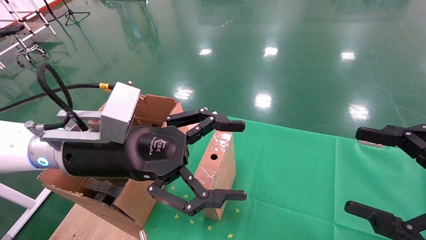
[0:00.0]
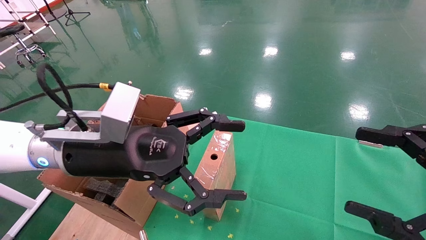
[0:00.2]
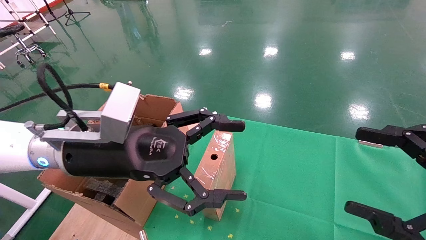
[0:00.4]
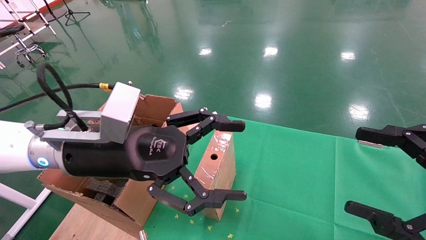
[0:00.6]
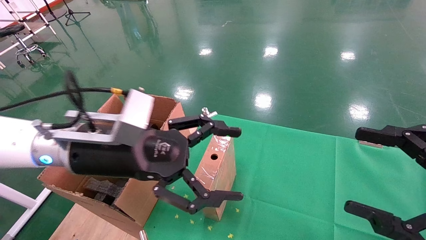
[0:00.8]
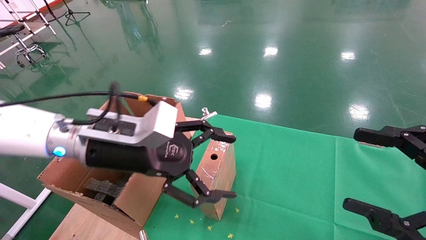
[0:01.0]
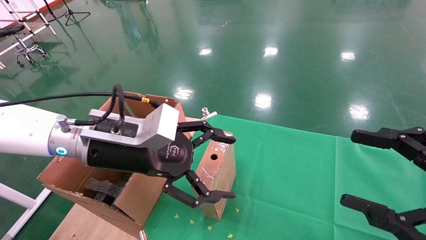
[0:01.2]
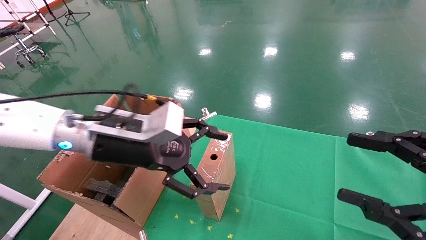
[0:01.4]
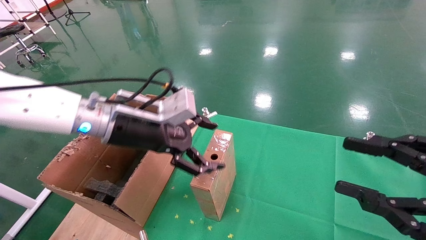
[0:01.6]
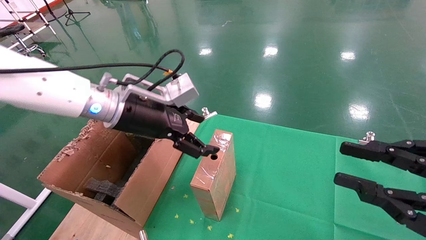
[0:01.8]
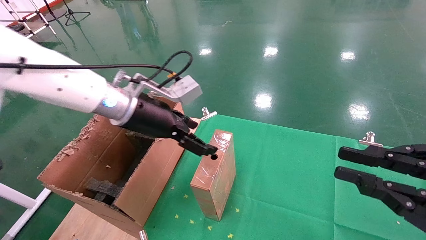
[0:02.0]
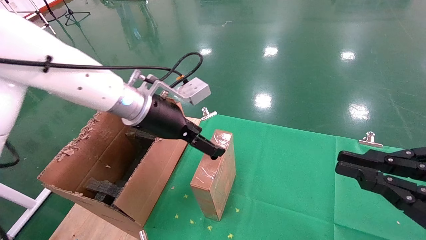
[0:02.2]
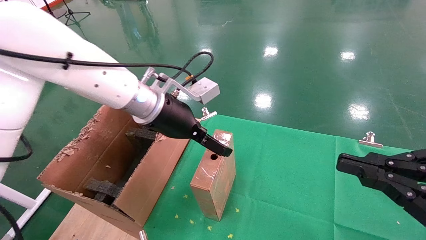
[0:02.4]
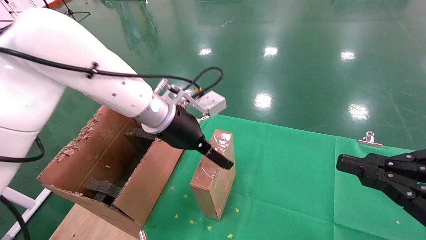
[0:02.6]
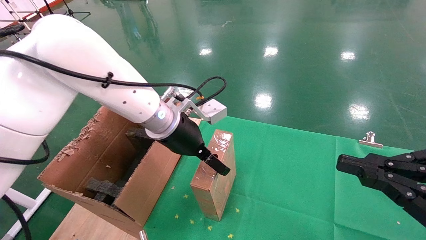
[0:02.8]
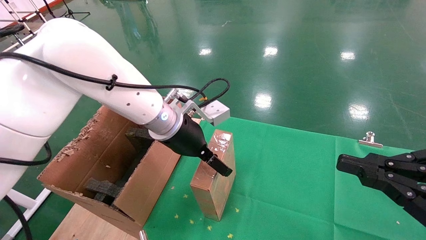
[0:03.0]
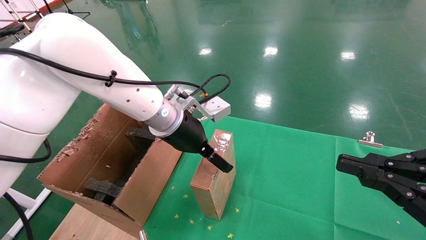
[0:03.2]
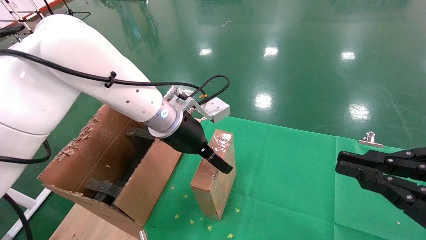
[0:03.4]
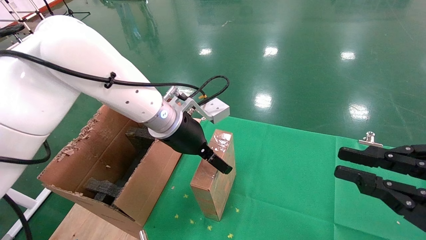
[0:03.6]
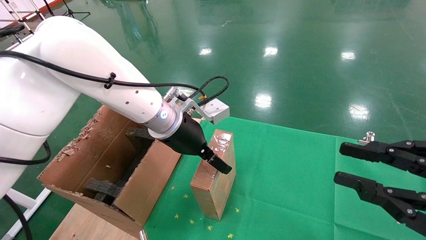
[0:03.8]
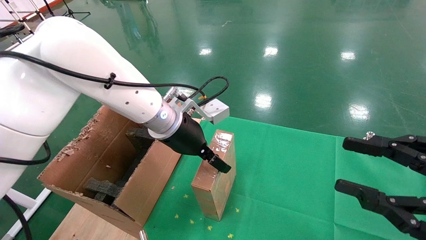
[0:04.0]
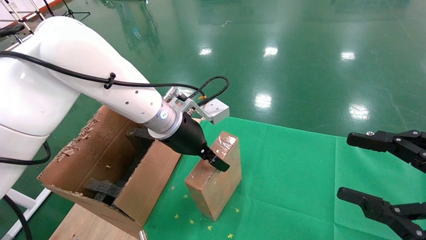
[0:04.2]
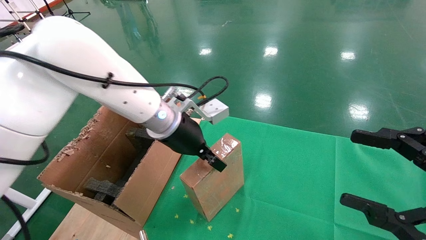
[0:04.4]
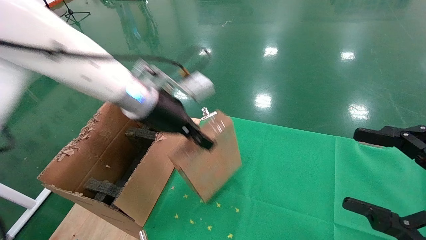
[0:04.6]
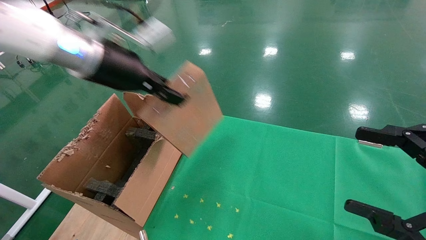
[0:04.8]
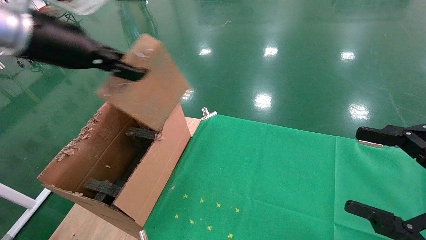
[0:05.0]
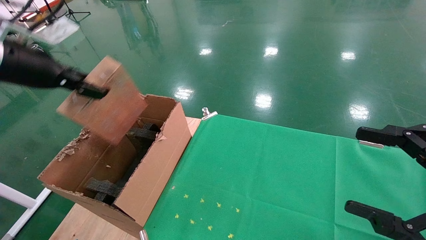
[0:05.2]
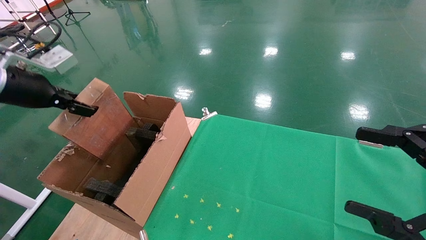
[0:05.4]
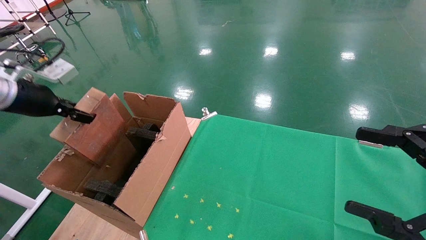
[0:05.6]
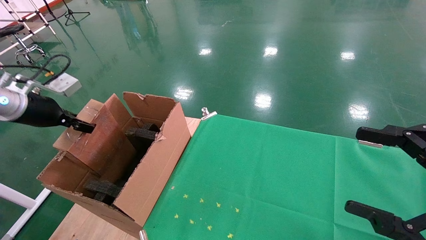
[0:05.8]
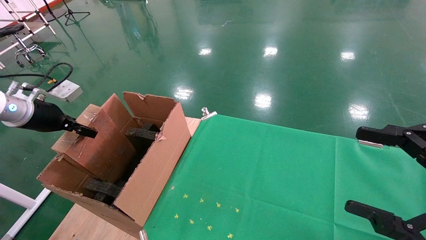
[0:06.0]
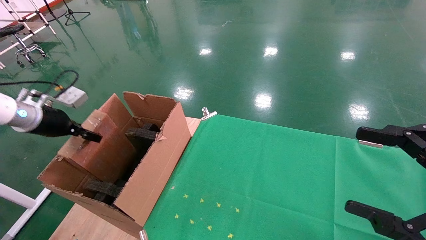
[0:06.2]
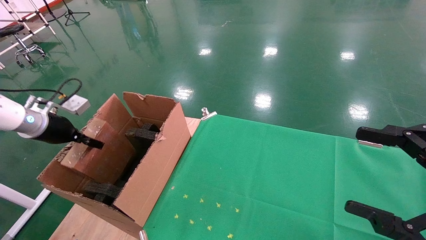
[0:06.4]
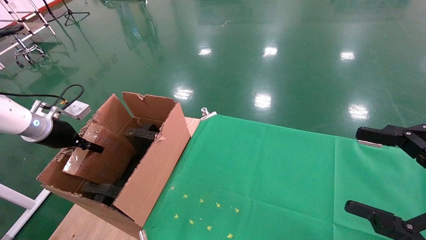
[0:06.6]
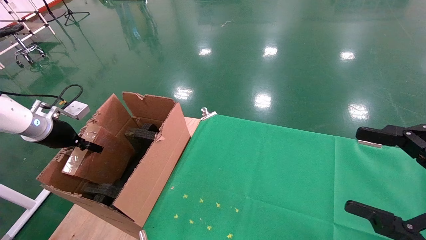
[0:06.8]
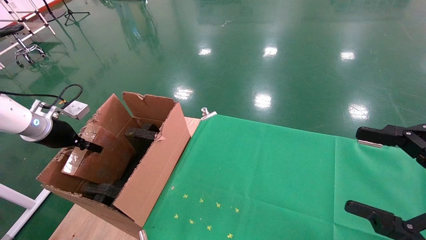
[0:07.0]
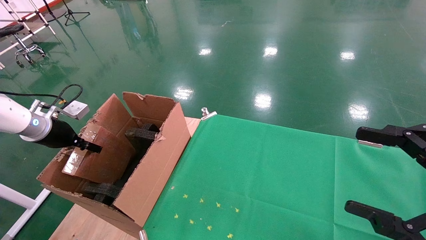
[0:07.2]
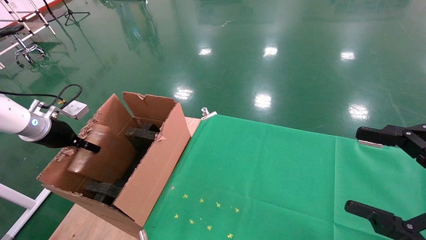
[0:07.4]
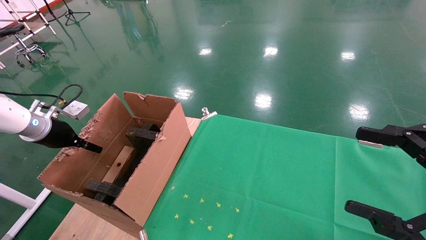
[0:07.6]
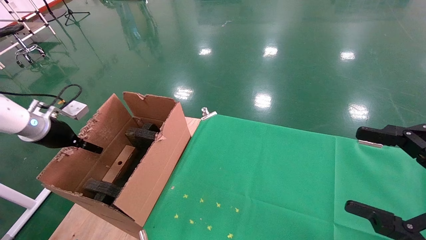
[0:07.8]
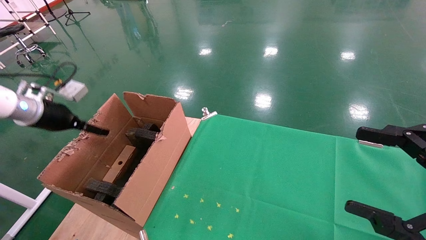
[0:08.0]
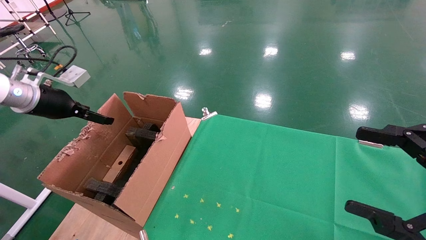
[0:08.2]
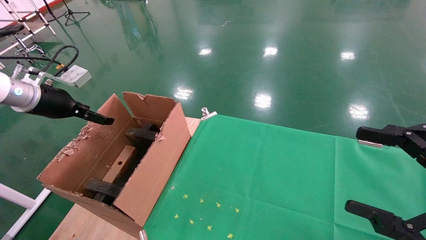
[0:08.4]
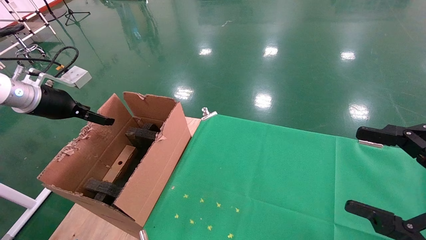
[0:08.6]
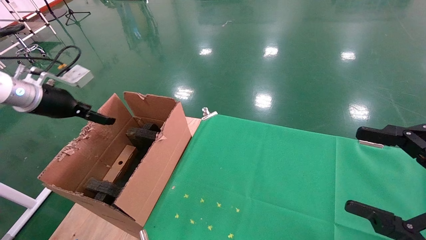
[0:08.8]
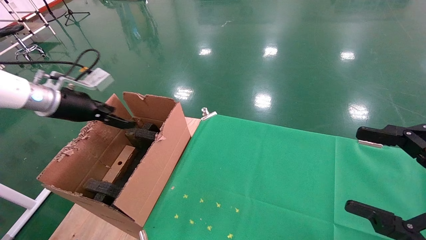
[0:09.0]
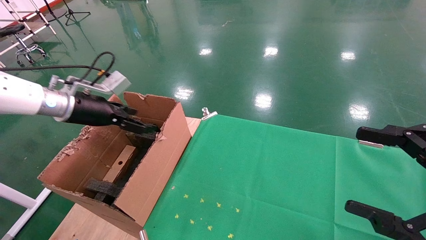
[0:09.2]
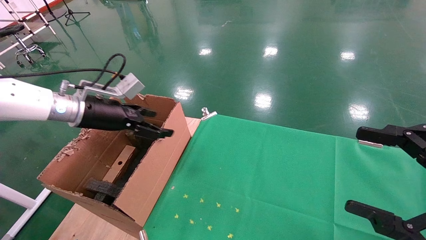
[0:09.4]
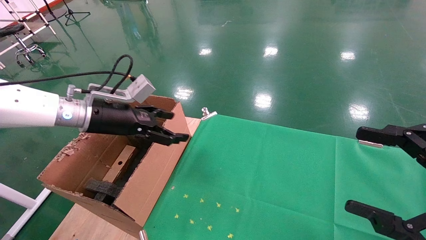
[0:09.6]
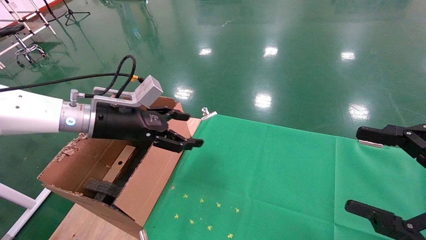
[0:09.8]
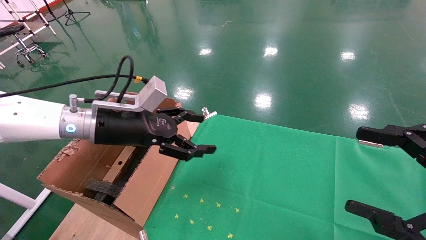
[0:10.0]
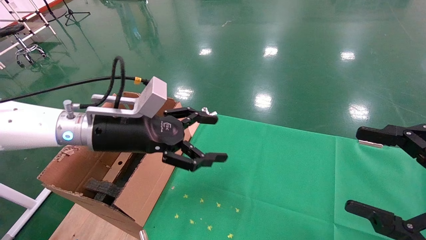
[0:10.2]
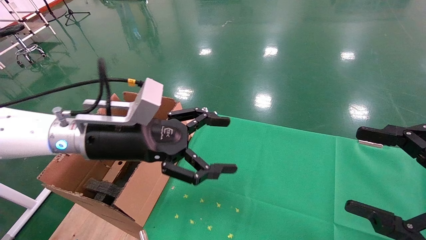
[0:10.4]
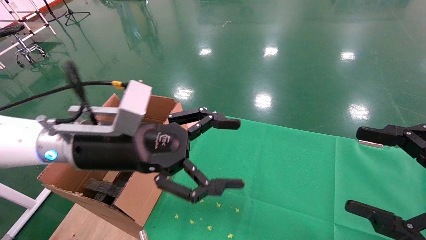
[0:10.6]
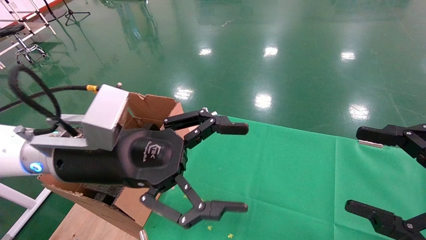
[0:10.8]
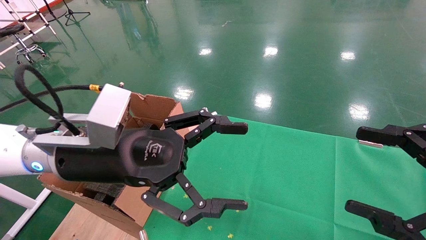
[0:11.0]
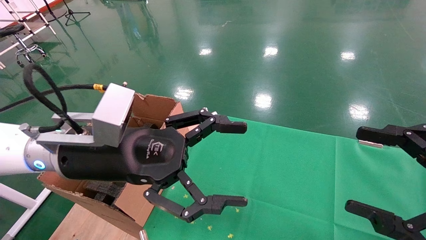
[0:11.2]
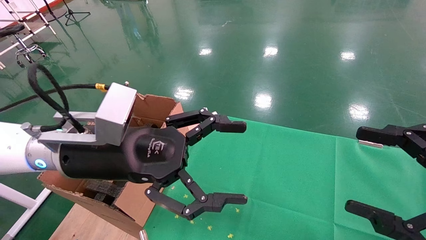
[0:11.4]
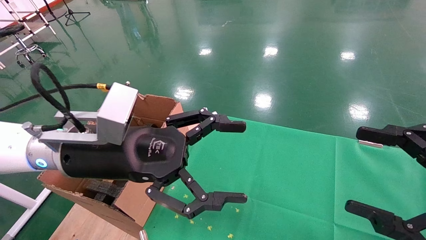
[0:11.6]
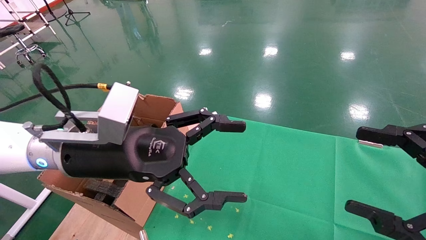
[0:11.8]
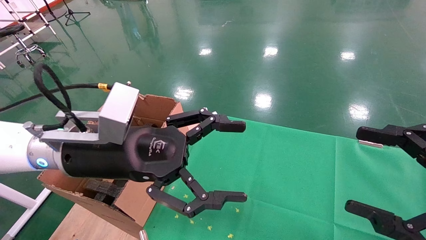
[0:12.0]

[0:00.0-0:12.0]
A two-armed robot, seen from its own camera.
Task of the whole recording: using a robotic arm to pick up a cardboard box and palace it the carton.
Step, 0:01.0 to 0:04.4: Pick up the mouse and the power cord paper box.
Step, 0:04.6 to 0:07.8: Place the mouse and the power cord paper box into the container.
0:00.0 to 0:01.6: The left gripper heads forward, covering about 5 cm; the right gripper closes.
0:01.6 to 0:03.0: The left gripper moves to the right and forward, roughly 10 cm. Meanwhile the right gripper closes.
0:03.0 to 0:04.4: The left gripper closes up; the right gripper opens.
0:04.4 to 0:06.0: The left gripper shifts approximately 35 cm to the left.
0:06.0 to 0:07.6: The left gripper heads downward, covering approximately 5 cm.
0:07.6 to 0:09.0: The left gripper shifts approximately 10 cm to the right and upward, and opens.
0:09.0 to 0:10.4: The left gripper shifts about 20 cm to the right and backward.
0:10.4 to 0:12.0: The left gripper moves roughly 5 cm.

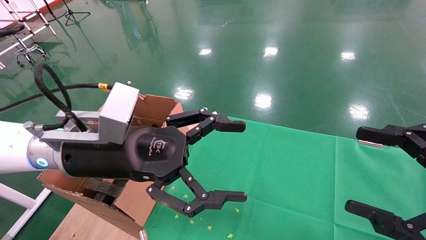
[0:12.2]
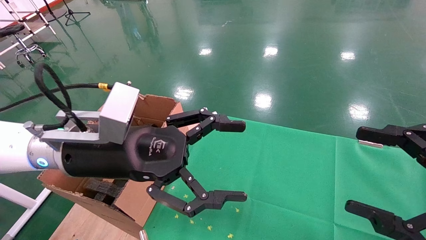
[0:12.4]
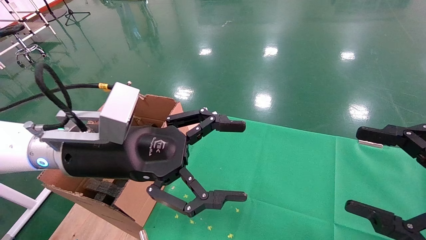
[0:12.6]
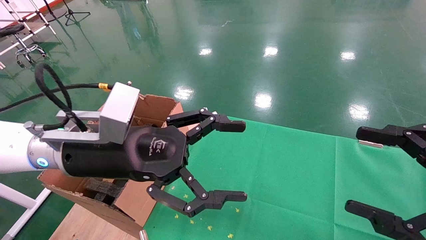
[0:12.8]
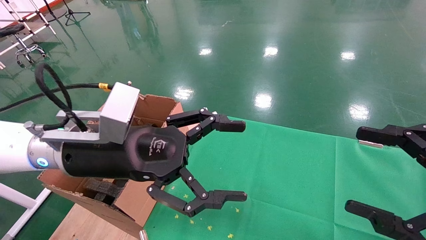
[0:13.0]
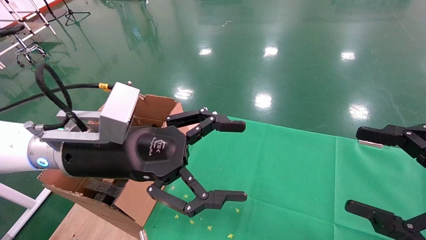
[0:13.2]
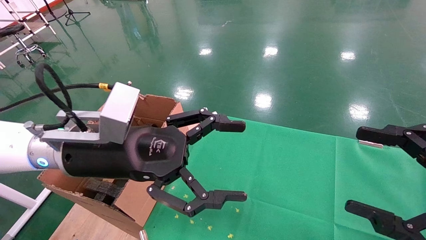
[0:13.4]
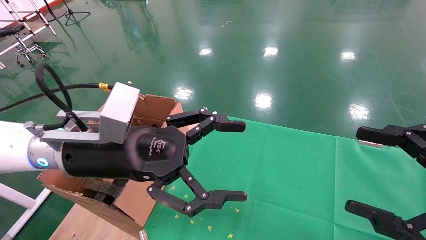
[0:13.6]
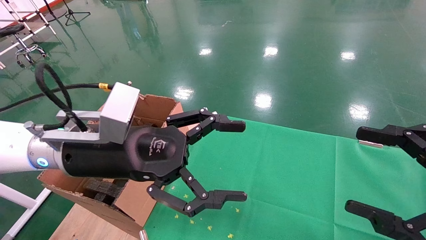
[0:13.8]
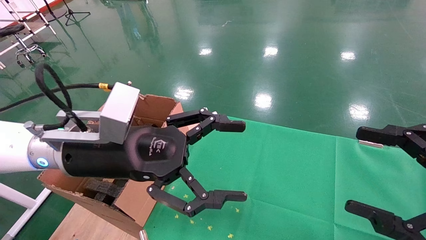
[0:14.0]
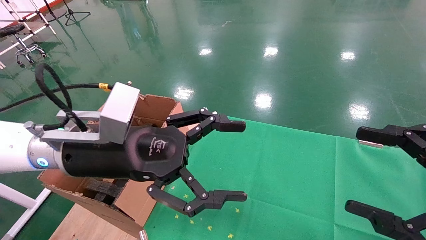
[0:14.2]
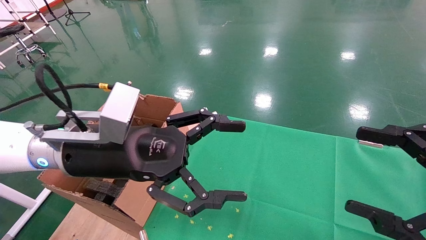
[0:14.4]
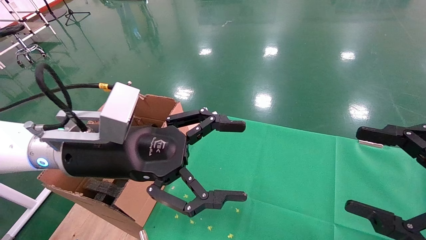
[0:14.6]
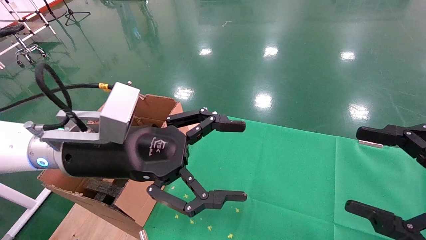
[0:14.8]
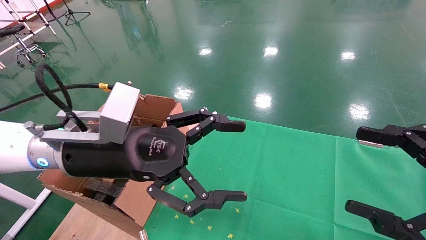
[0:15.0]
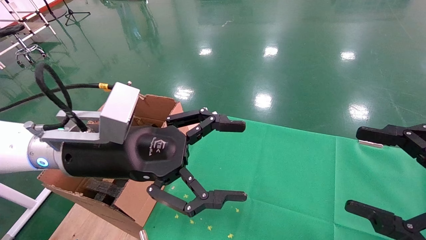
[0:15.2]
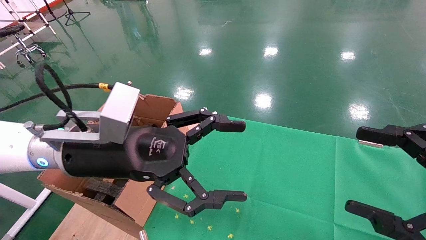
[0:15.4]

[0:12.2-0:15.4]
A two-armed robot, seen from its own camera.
Task of the whole recording: using a robotic arm to pick up a cardboard box and palace it the carton.
0:12.2 to 0:15.4: Both grippers stay about where they are.

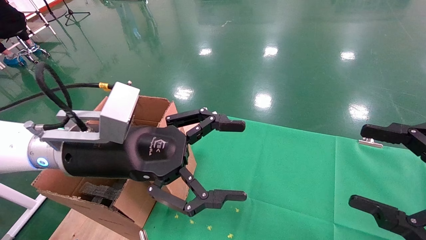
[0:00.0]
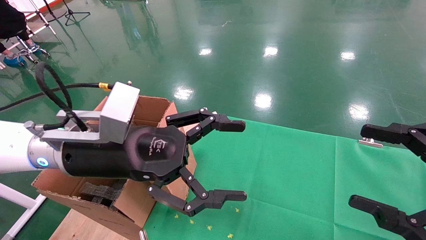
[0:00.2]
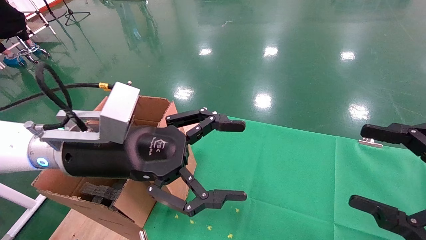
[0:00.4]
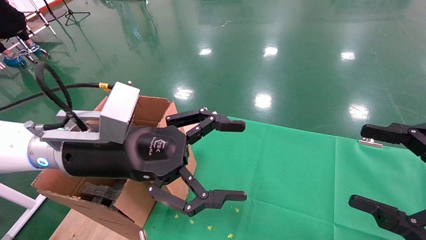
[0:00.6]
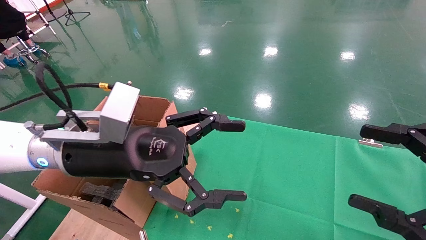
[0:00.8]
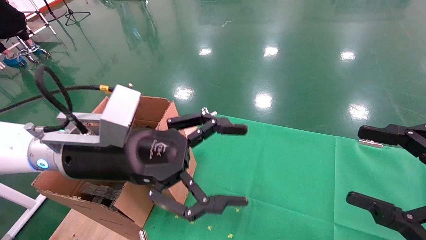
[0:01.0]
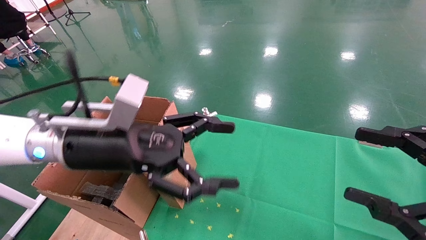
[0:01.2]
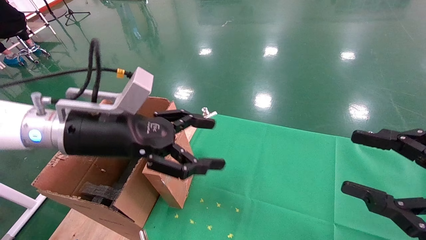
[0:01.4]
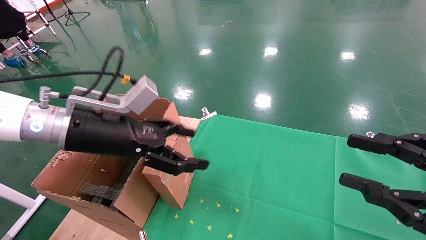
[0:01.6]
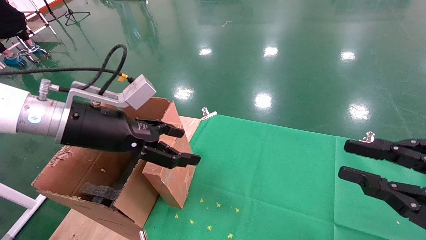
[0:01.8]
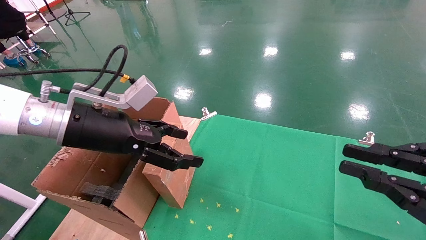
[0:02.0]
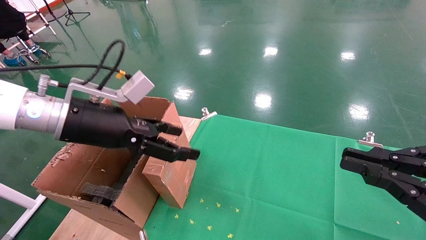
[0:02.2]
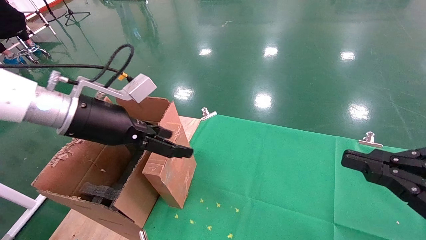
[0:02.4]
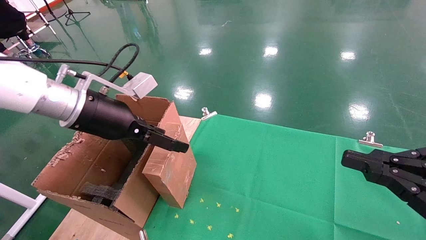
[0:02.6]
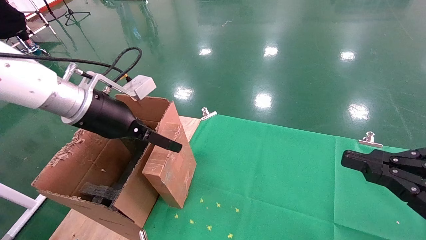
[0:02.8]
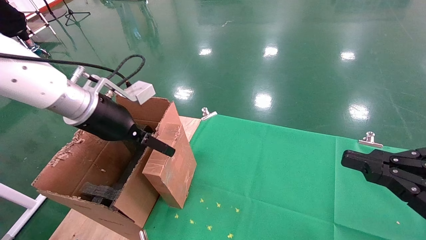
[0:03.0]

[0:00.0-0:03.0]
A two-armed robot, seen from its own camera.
Task of the whole recording: using a robotic arm to pick up a cardboard box and palace it the carton.
0:00.0 to 0:01.6: The left gripper shifts by approximately 5 cm. Meanwhile the right gripper closes up.
0:01.6 to 0:03.0: The right gripper closes up. Meanwhile the left gripper changes place by about 5 cm.
